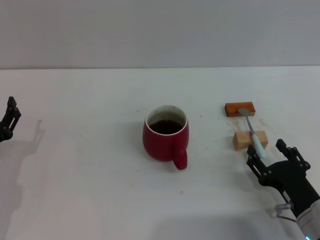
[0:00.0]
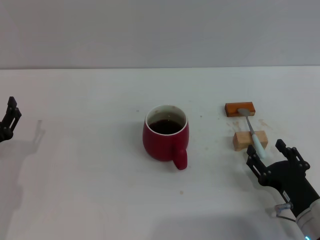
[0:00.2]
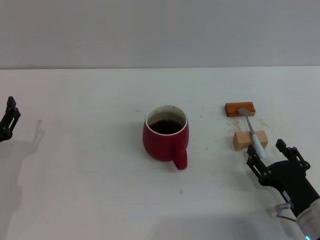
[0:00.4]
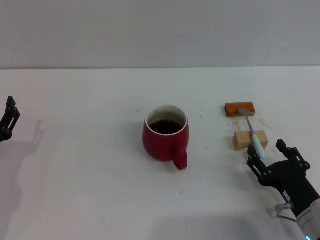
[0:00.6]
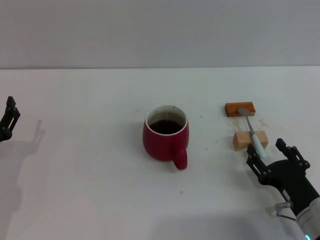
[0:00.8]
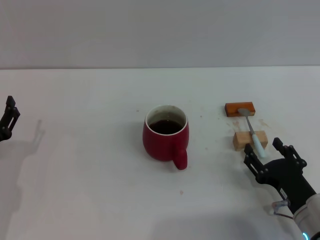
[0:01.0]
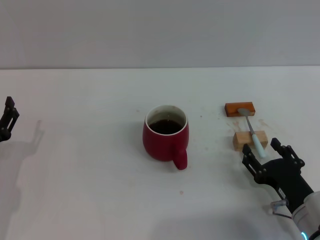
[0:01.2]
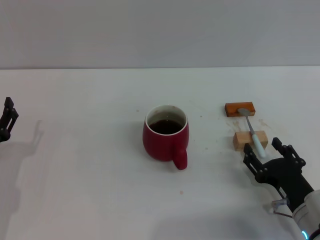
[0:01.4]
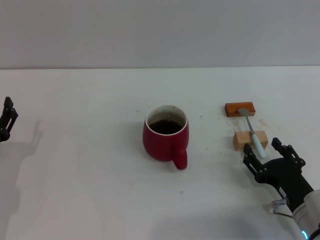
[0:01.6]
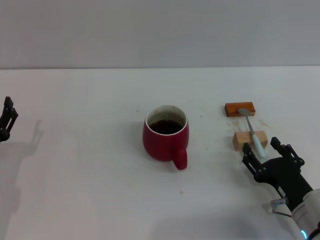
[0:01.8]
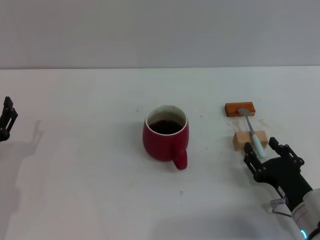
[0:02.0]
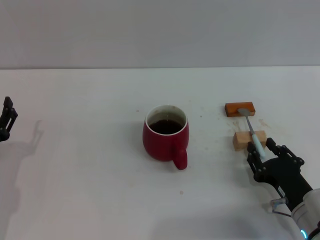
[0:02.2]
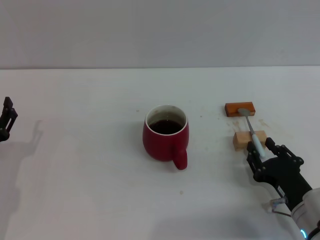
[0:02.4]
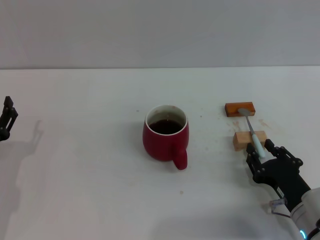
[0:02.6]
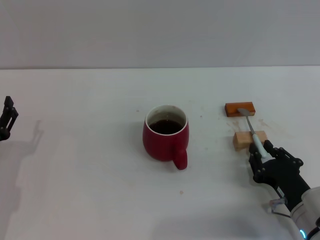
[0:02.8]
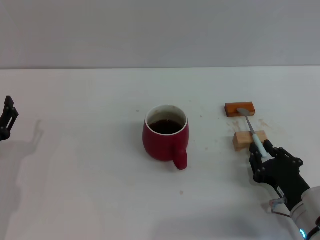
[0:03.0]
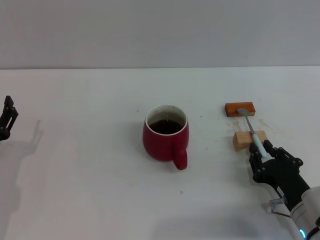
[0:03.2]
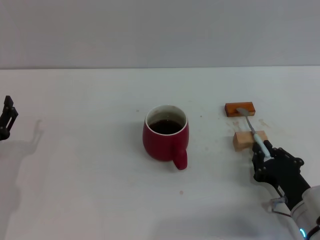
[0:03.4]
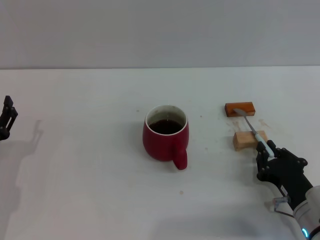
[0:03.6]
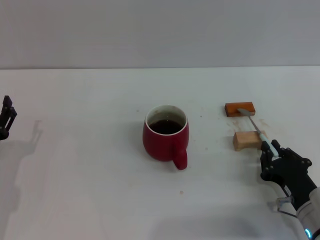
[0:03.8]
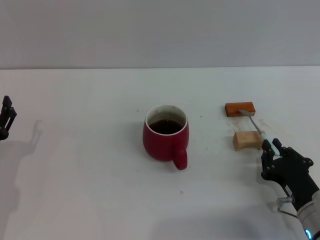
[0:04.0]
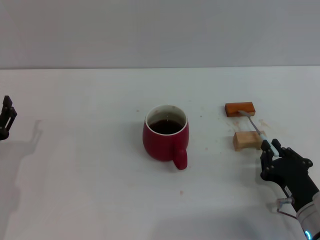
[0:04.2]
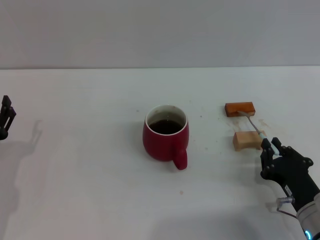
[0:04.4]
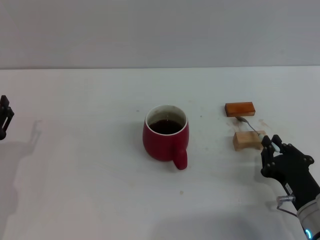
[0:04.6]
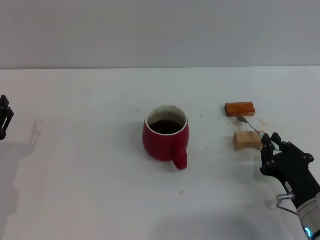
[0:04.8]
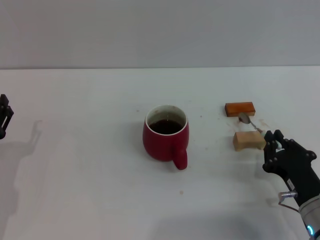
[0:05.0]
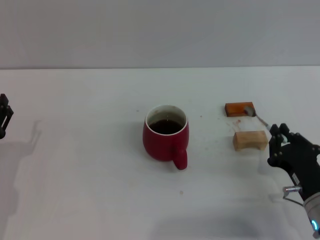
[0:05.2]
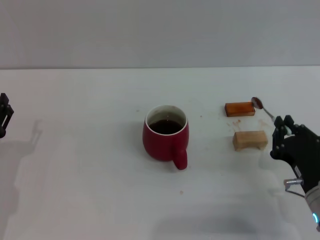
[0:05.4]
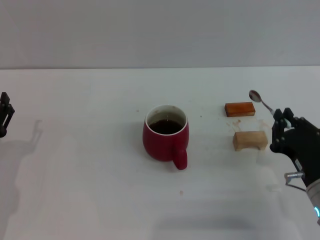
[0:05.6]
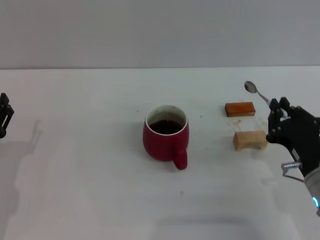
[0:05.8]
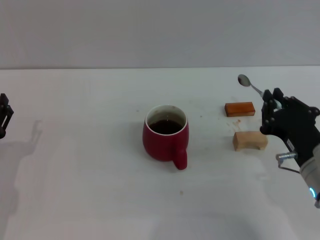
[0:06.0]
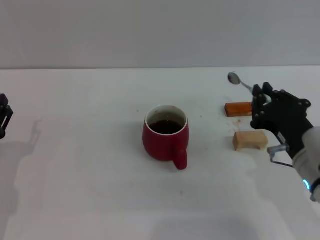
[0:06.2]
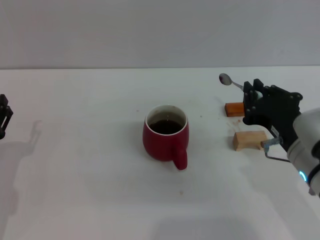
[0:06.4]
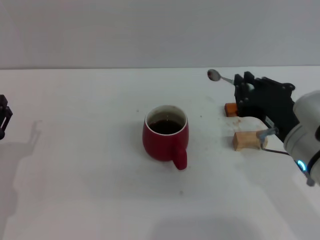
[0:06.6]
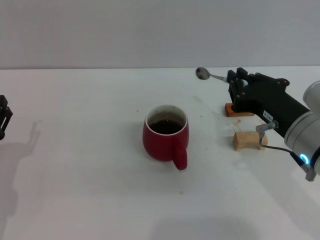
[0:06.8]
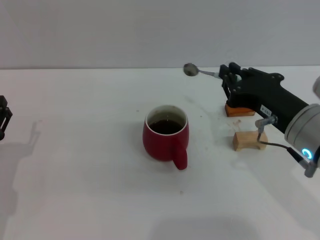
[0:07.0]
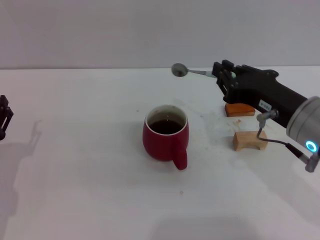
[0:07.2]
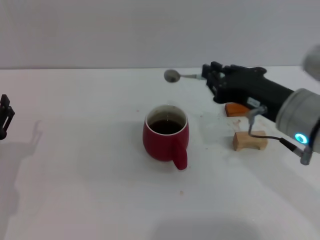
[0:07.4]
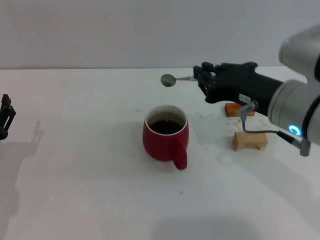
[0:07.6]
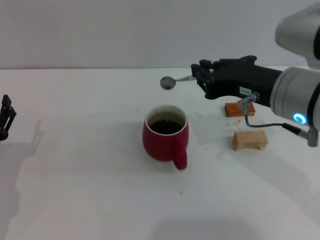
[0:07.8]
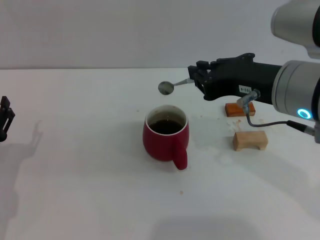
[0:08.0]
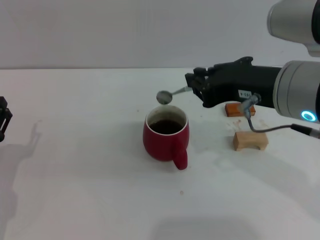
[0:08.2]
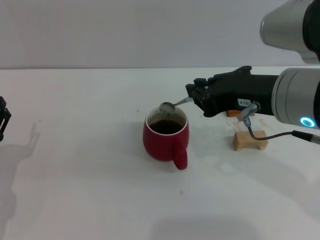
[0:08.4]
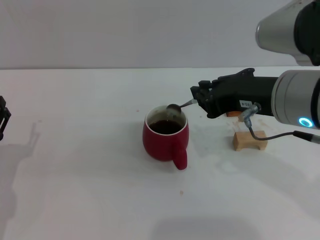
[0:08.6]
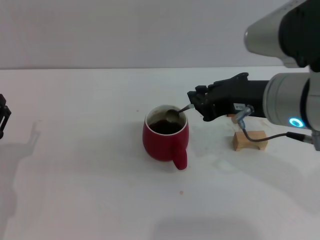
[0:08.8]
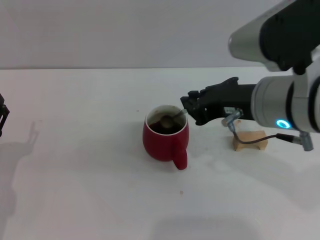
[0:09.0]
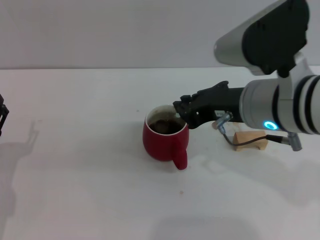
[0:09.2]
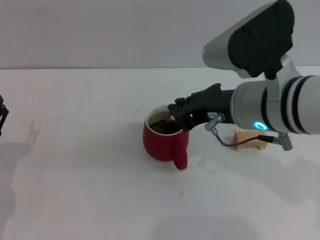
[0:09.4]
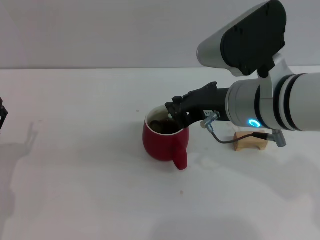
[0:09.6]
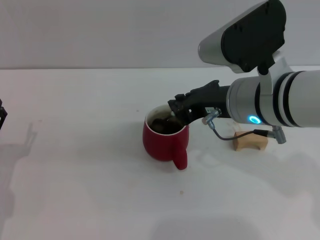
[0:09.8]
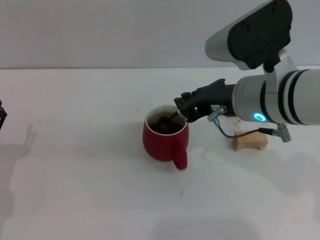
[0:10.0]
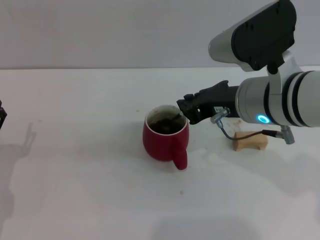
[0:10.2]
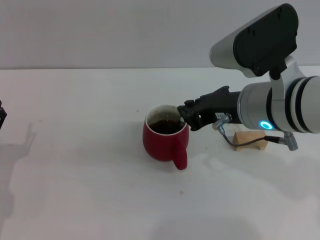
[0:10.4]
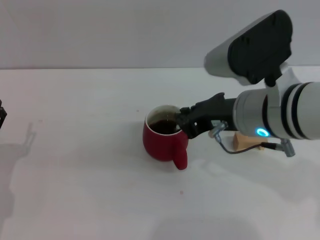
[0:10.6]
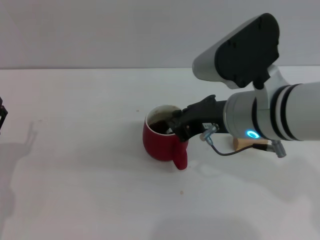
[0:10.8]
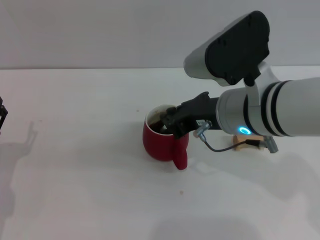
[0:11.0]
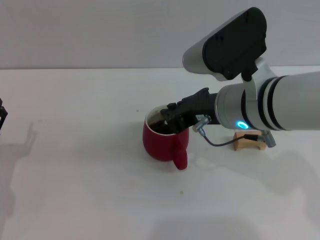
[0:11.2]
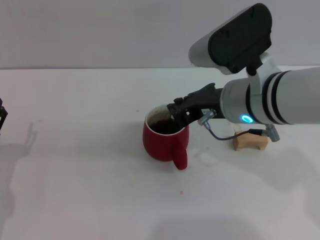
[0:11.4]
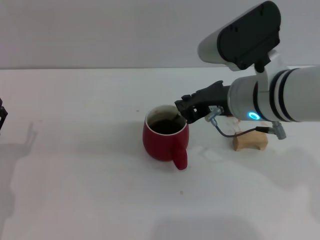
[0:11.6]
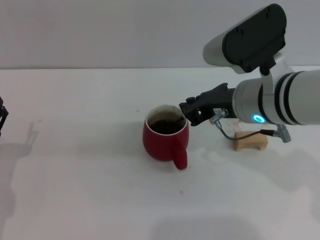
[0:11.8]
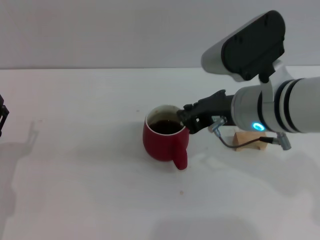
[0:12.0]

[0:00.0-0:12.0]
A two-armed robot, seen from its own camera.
Task of the whole recording: Move the red cup to the center, lift the blue spoon, stir it three times in the cup, and put the spoon into the cup.
Step, 0:00.0 to 0:05.8: Pick up the spoon with the right gripper.
0:00.0 to 0:01.6: Both grippers stay put.
0:01.6 to 0:03.0: The right gripper closes its fingers.
0:03.0 to 0:04.4: There are only small adjustments of the grippers.
0:04.4 to 0:06.0: The right gripper travels upward by about 10 cm.
0:06.0 to 0:07.6: The right gripper moves upward, roughly 10 cm.
0:09.0 to 0:12.0: The grippers stay close to where they were, moving slightly.

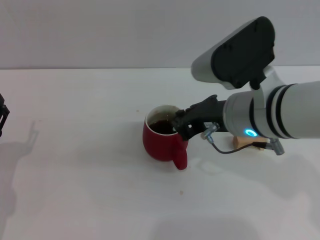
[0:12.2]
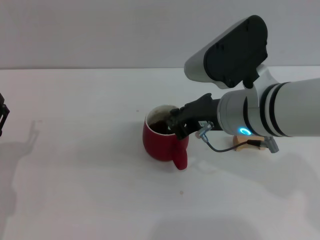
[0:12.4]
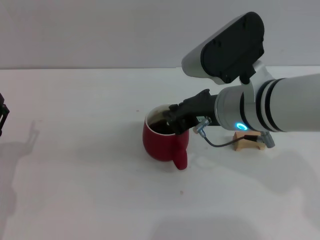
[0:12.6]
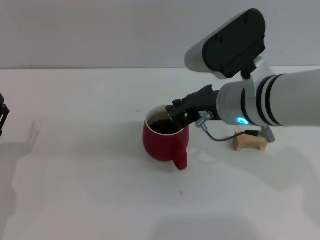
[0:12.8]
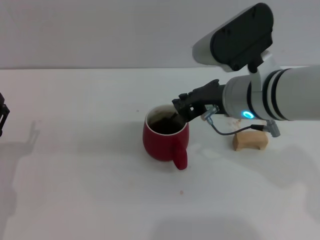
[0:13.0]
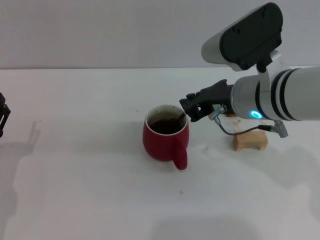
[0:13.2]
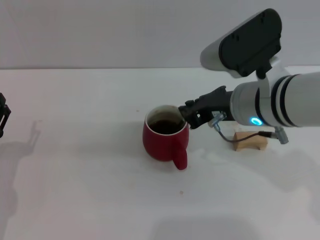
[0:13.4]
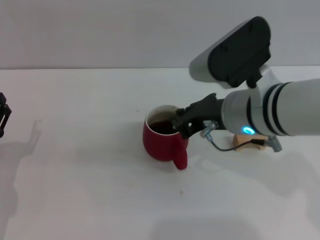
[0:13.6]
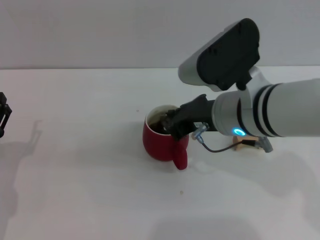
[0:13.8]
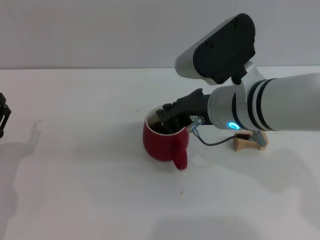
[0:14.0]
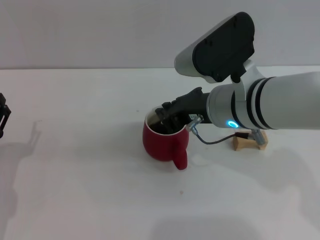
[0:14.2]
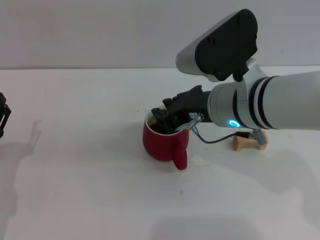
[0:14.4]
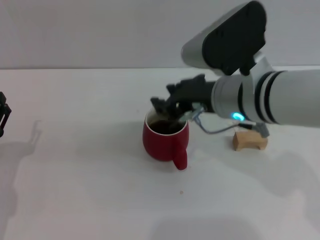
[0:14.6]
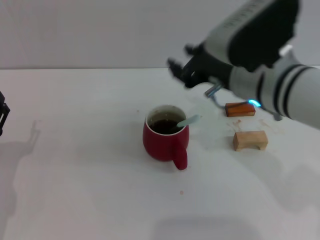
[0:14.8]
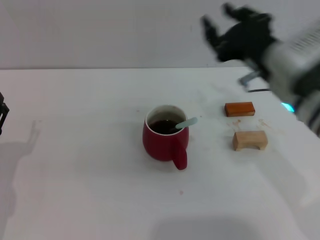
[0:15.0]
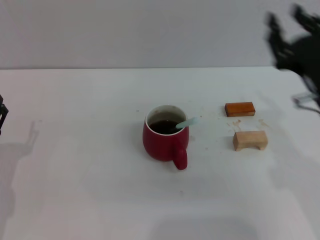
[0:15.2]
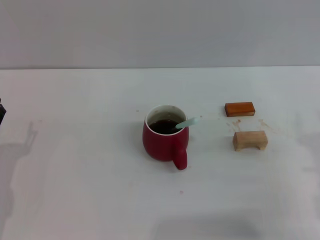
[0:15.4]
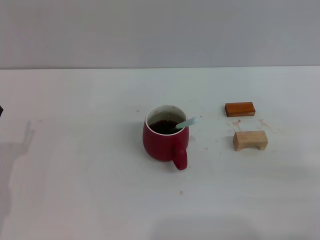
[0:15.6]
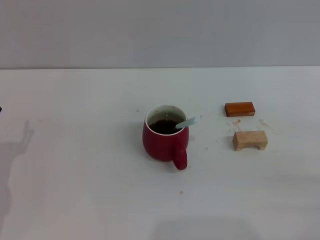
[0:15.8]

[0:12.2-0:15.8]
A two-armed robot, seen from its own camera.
Task of the whole recording: Move the red cup to the center, lift the blue spoon, stir it three times in the cup, and put the spoon into the cup.
Step, 0:12.2 to 0:14.6: Stir the coffee in the cup with the right gripper.
0:12.2 to 0:14.0: The grippers move only a little.
0:14.0 to 0:15.8: The right gripper shifts about 30 cm to the right, backward and downward, and opens its fingers.
